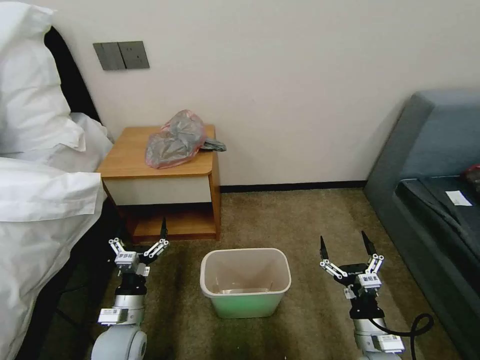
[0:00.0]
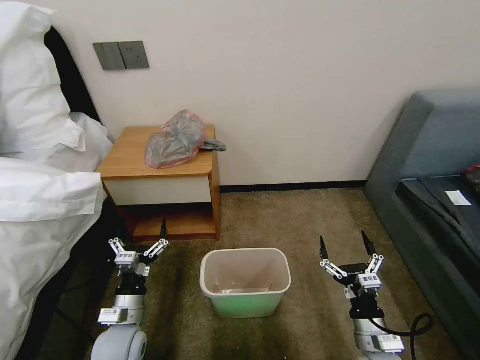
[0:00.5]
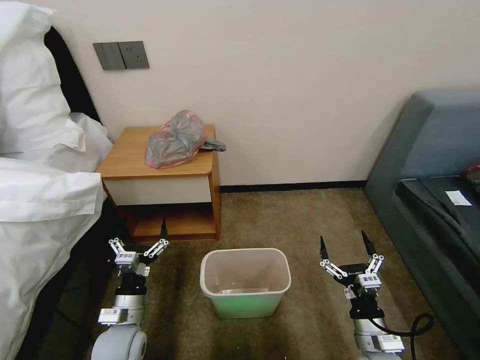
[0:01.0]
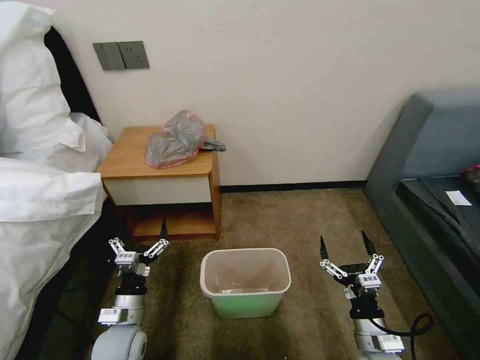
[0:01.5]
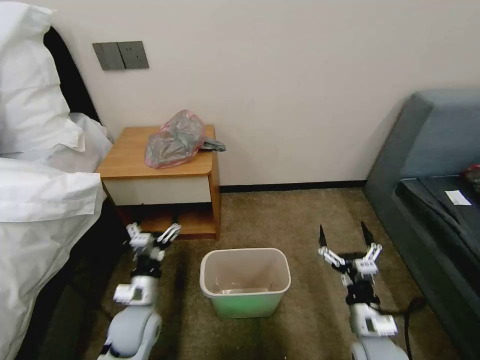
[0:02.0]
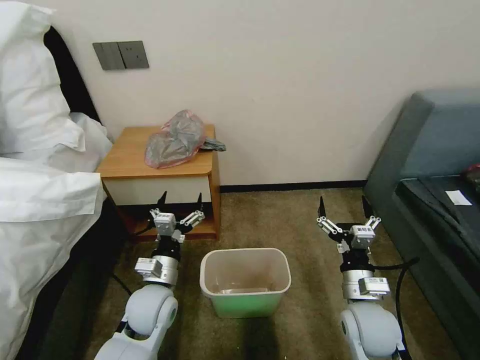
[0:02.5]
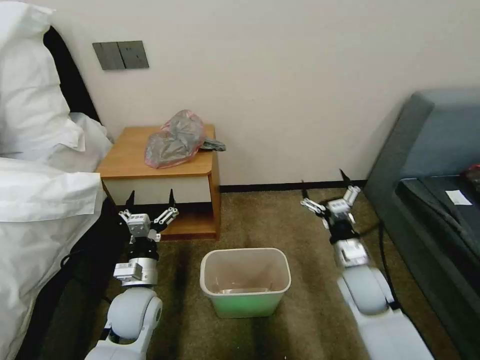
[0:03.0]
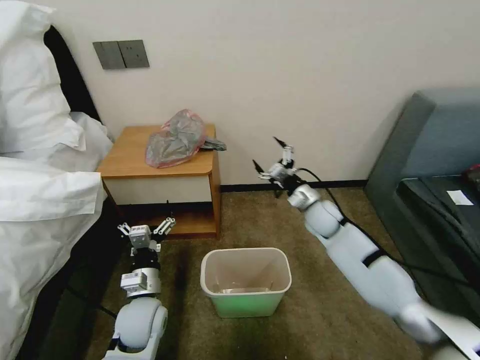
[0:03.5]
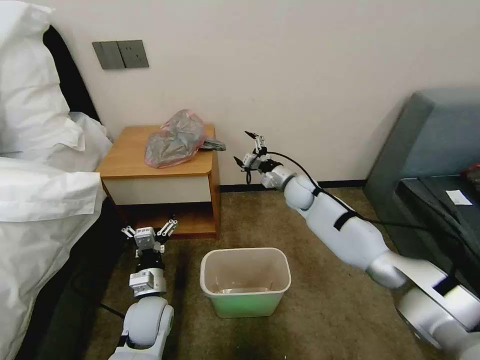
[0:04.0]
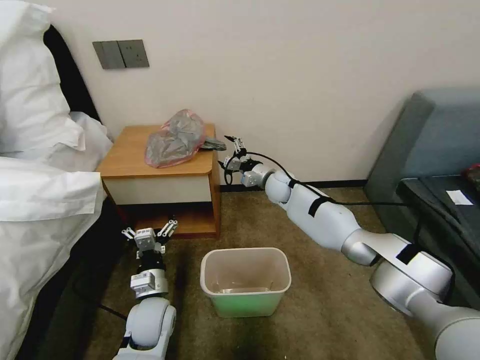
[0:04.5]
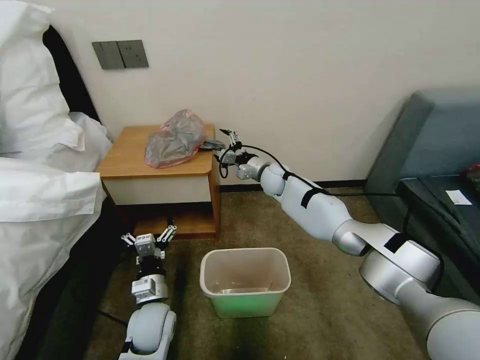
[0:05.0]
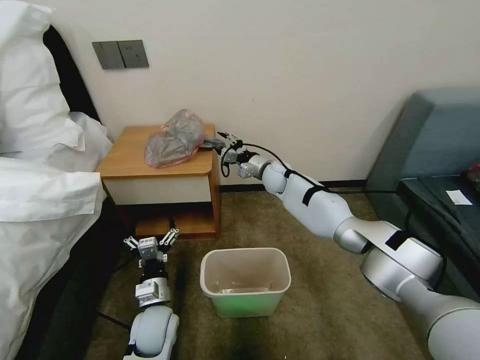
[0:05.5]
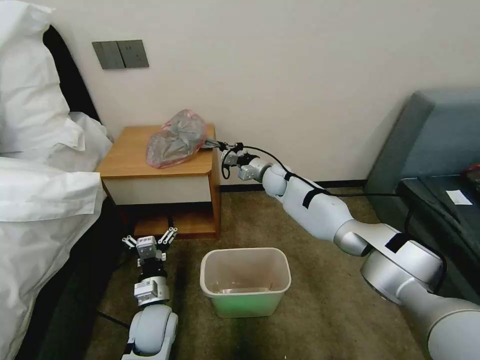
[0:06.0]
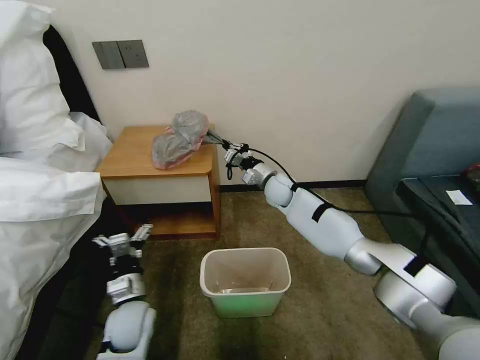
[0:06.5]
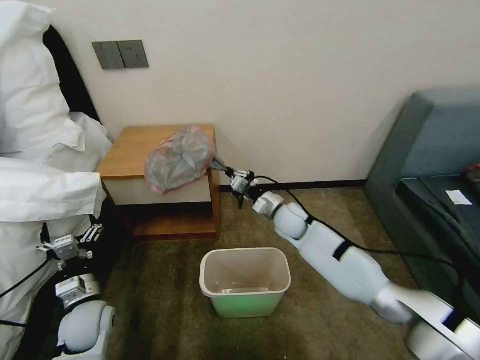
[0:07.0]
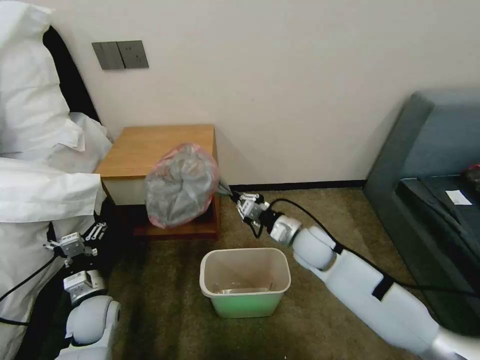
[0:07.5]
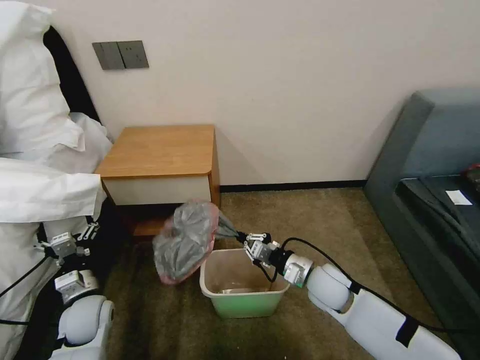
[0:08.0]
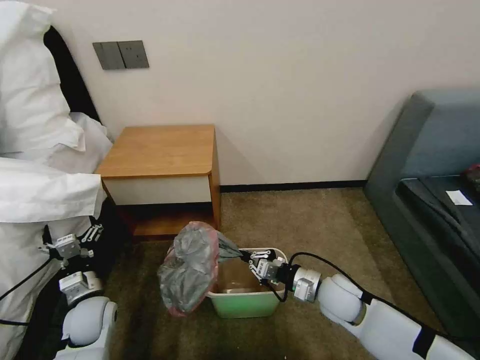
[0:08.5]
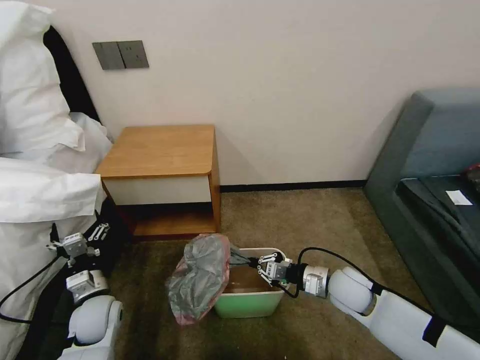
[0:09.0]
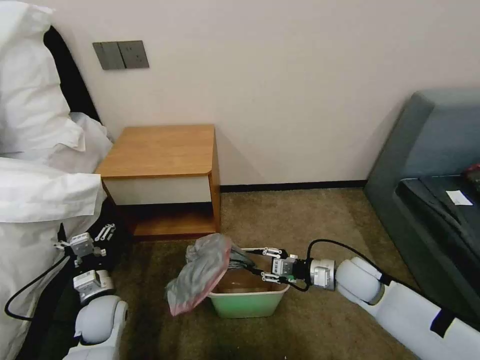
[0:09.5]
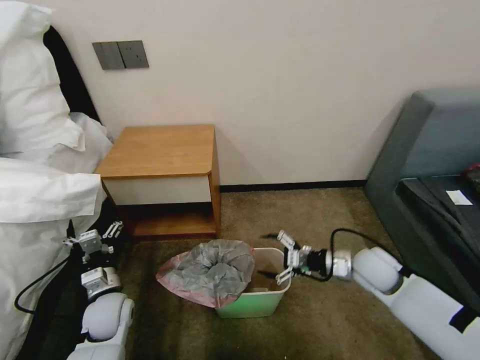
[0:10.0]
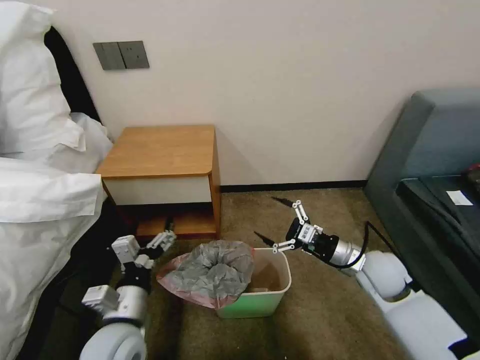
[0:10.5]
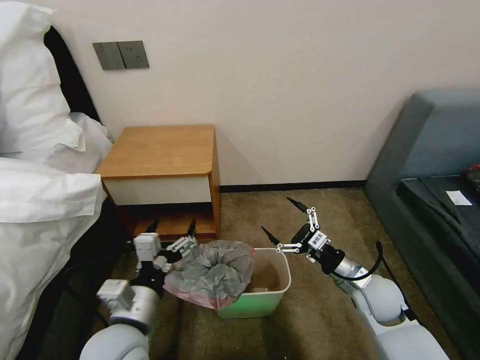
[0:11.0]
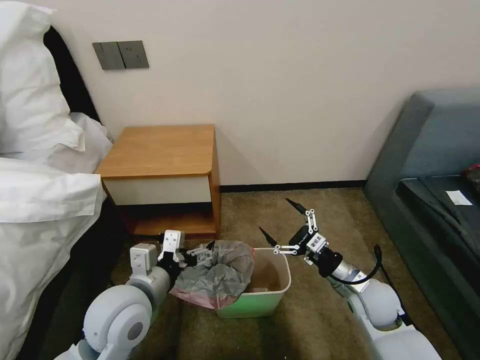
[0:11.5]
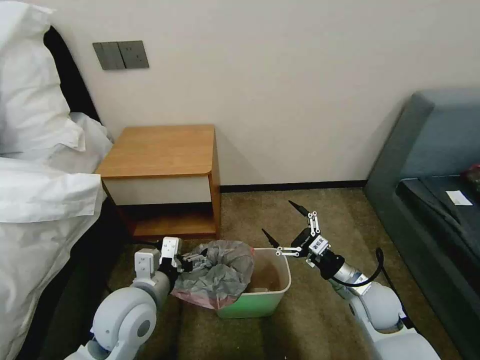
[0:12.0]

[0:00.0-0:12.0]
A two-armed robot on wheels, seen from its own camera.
Task of the whole recording: Pick up the garbage bag from the table and place it over the trash can.
0:02.0 to 0:04.0: The right gripper travels forward by approximately 35 cm.
0:04.0 to 0:06.0: The right gripper travels to the left by some 5 cm, and closes.
0:06.0 to 0:08.0: The right gripper heads backward, covering approximately 30 cm. Meanwhile the left gripper shifts approximately 15 cm to the left.
0:08.0 to 0:10.0: The right gripper goes roughly 10 cm to the right, and opens.
0:10.0 to 0:12.0: The right gripper travels backward by roughly 5 cm. The left gripper travels upward and to the right by about 15 cm.

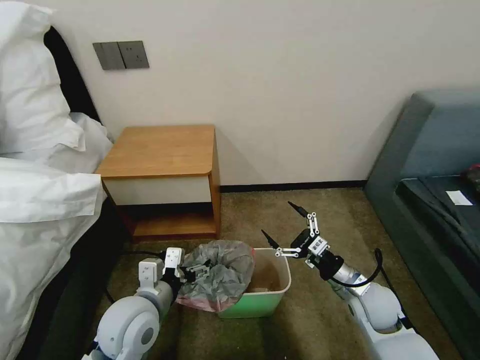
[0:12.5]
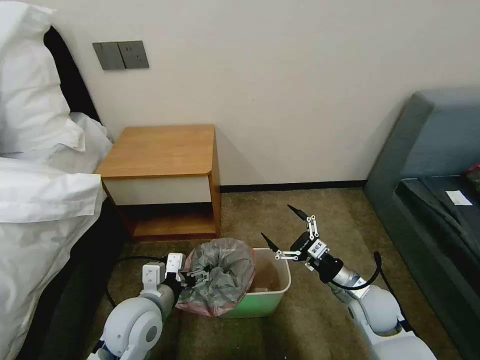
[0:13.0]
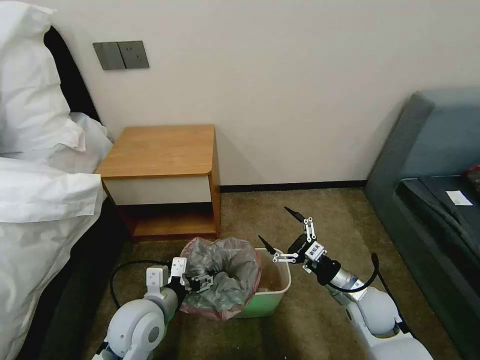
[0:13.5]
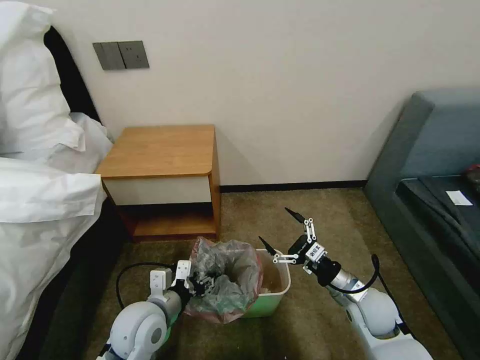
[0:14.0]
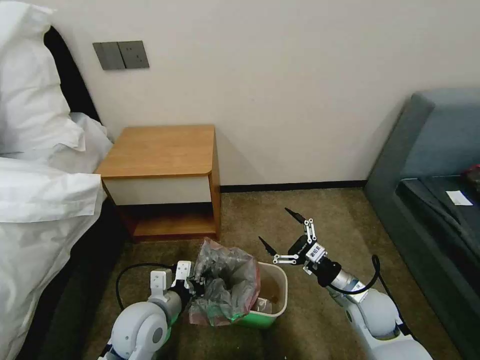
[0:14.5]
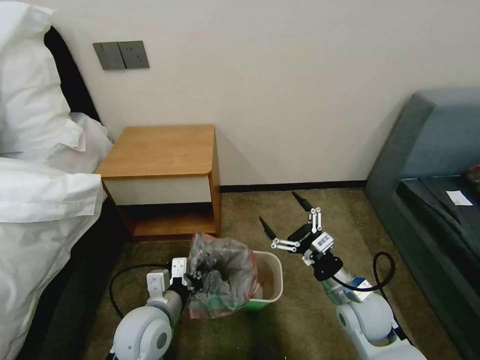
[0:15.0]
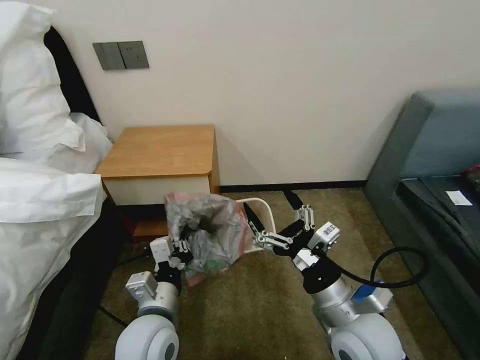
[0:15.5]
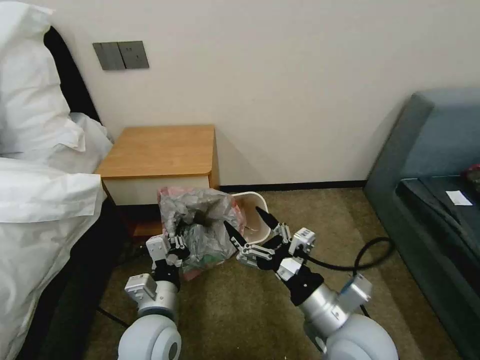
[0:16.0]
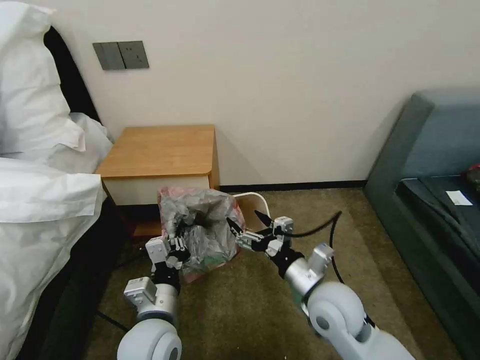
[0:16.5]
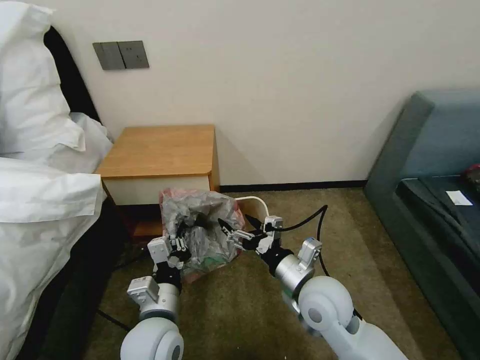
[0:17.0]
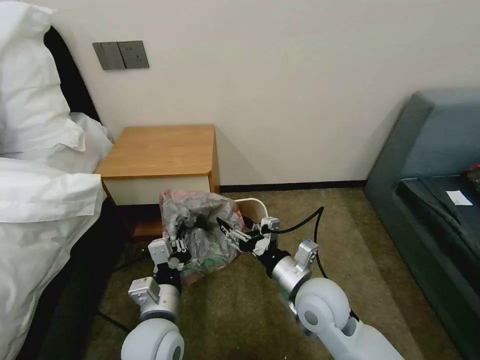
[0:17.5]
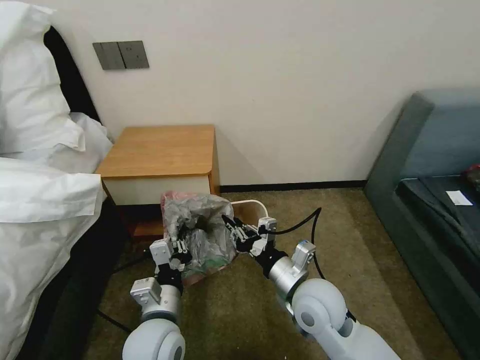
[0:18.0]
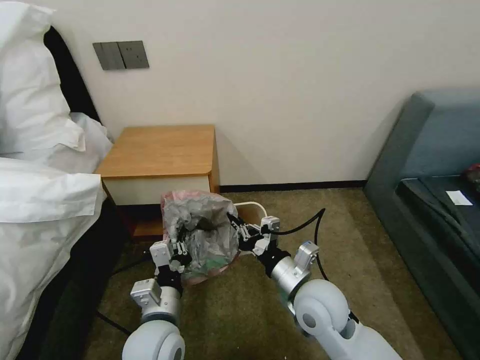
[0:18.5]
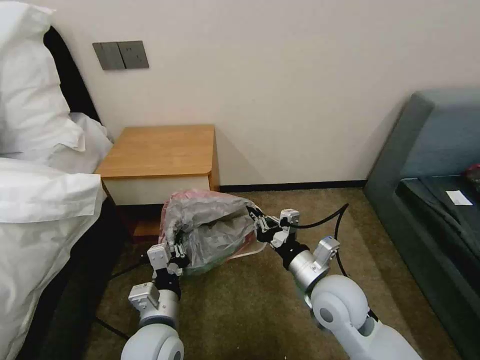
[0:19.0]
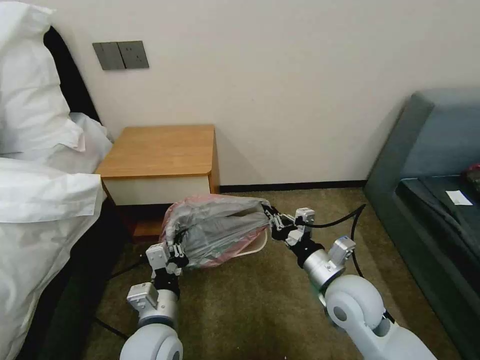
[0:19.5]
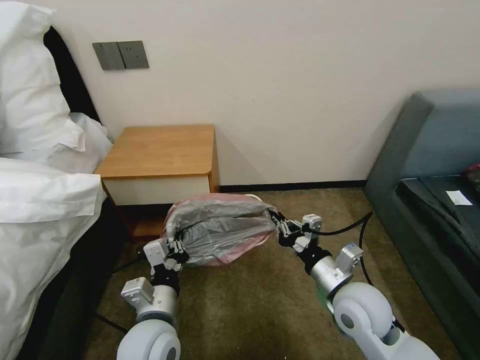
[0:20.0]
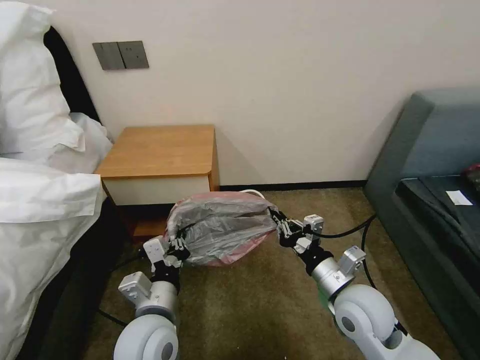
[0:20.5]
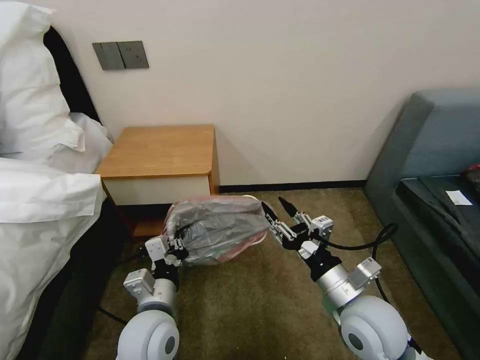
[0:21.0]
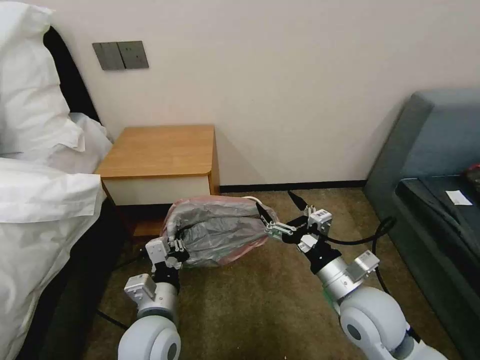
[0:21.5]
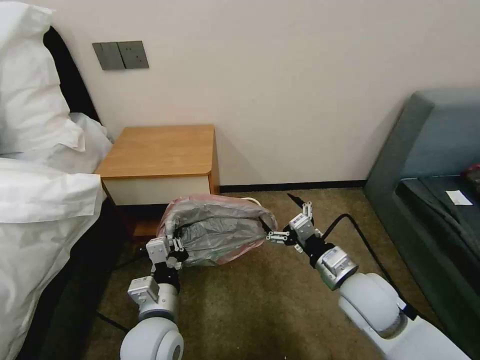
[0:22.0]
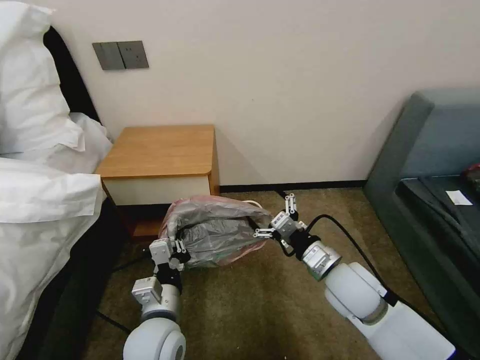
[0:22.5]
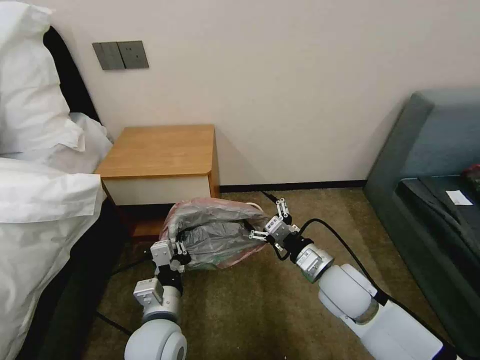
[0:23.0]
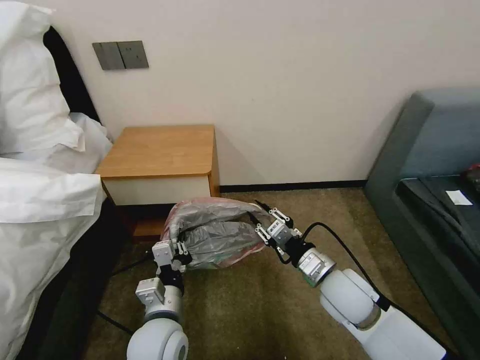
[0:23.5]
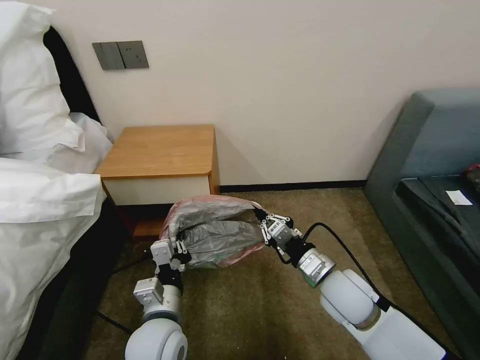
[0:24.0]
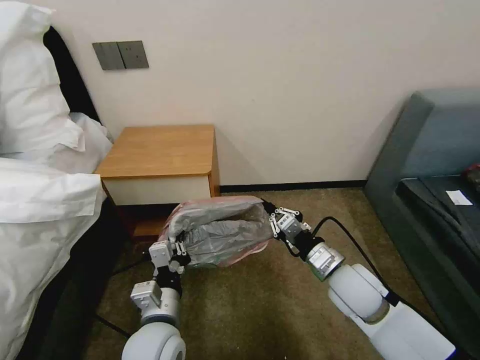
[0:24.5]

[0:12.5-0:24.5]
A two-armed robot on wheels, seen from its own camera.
Task of the whole recording: Pick up the garbage bag from the table and place it over the trash can.
0:12.5 to 0:14.5: The left gripper closes.
0:14.5 to 0:16.5: The left gripper shifts by approximately 5 cm. Meanwhile the right gripper is displaced to the left and upward by approximately 15 cm.
0:16.5 to 0:18.5: The right gripper closes up.
0:18.5 to 0:20.5: The right gripper heads to the right, covering some 10 cm.
0:20.5 to 0:22.5: The right gripper opens.
0:22.5 to 0:24.5: The right gripper closes its fingers.

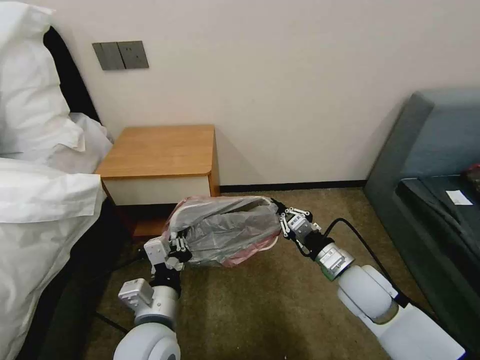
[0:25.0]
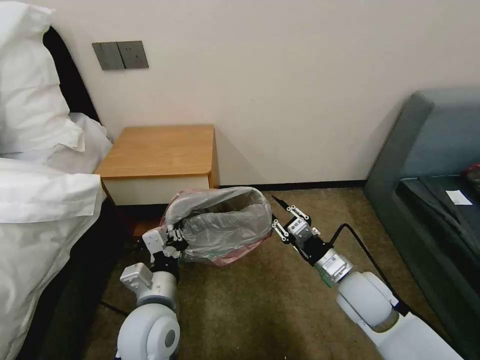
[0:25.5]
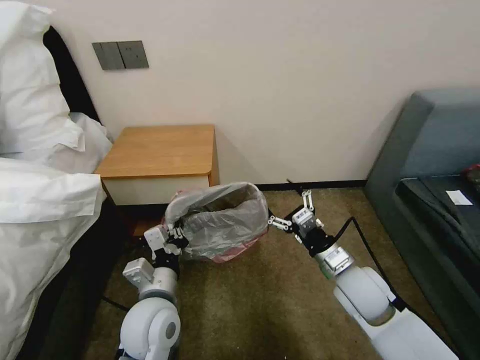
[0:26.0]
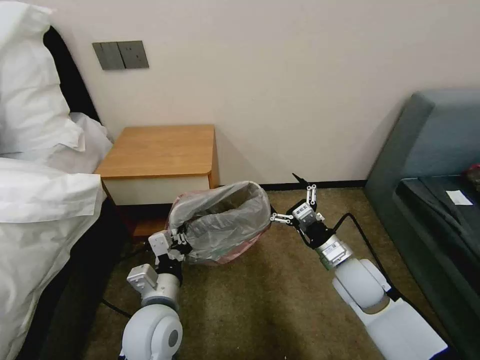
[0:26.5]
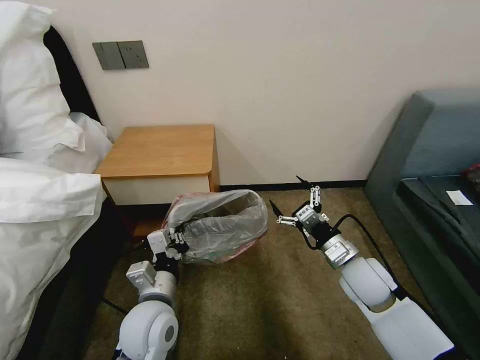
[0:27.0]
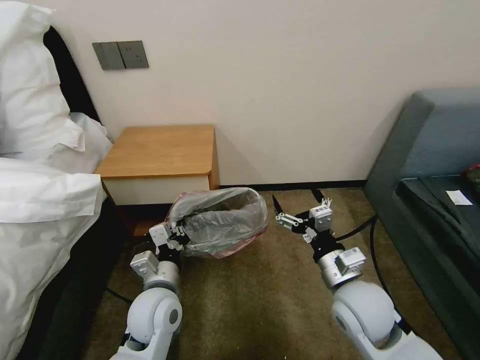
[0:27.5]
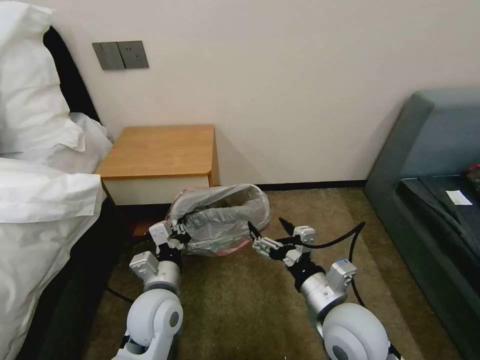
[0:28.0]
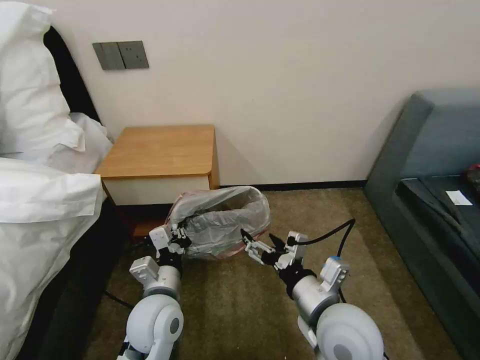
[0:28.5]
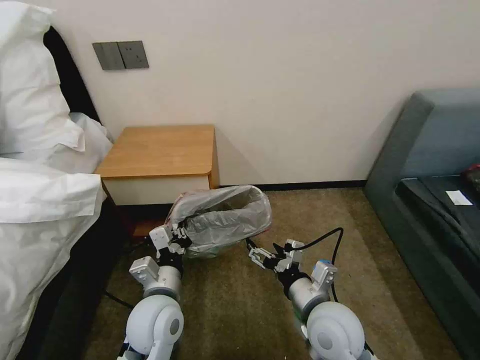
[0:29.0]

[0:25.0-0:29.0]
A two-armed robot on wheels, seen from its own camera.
Task of the whole recording: Pick up the garbage bag from the table and place it over the trash can.
0:25.0 to 0:27.0: The left gripper shifts by roughly 5 cm; the right gripper opens.
0:27.0 to 0:29.0: The right gripper is displaced to the left and backward by approximately 15 cm.
